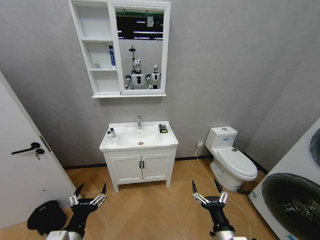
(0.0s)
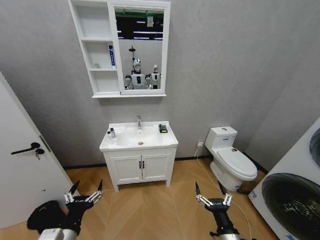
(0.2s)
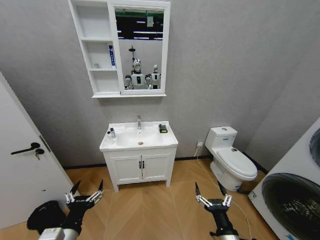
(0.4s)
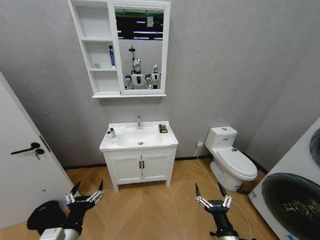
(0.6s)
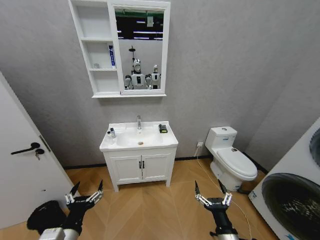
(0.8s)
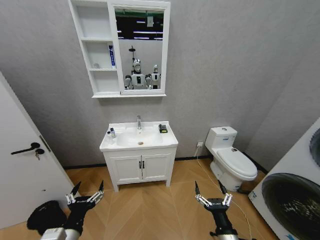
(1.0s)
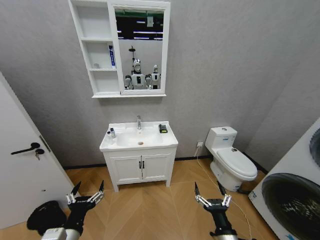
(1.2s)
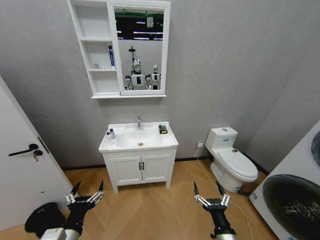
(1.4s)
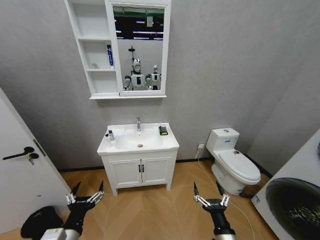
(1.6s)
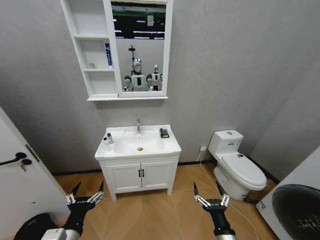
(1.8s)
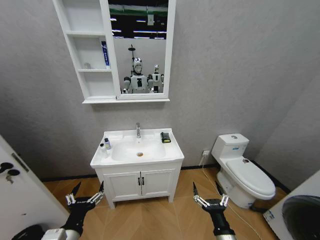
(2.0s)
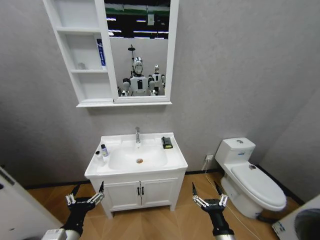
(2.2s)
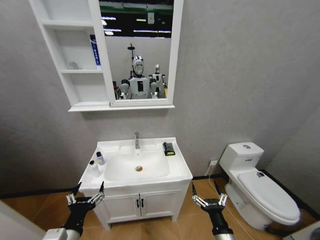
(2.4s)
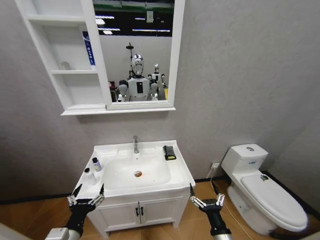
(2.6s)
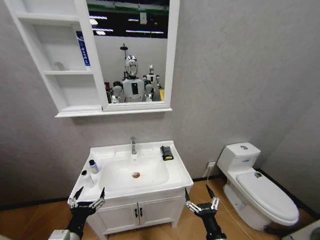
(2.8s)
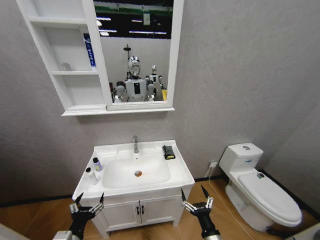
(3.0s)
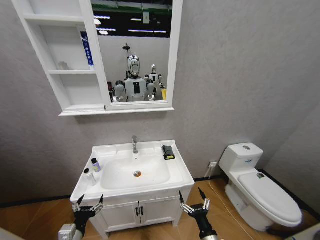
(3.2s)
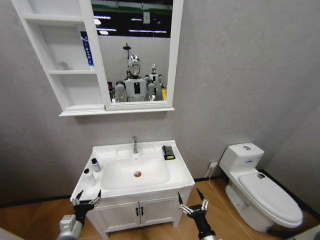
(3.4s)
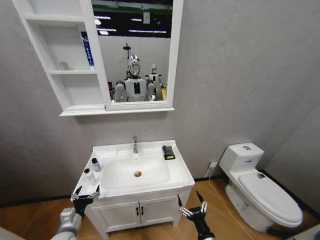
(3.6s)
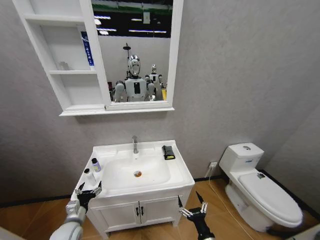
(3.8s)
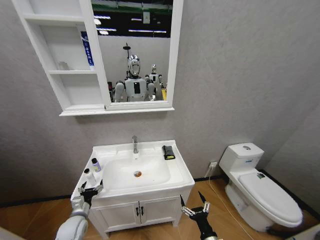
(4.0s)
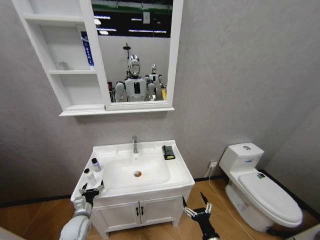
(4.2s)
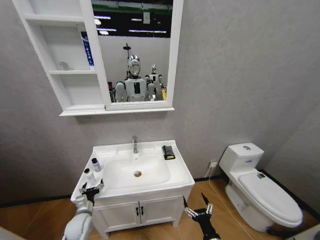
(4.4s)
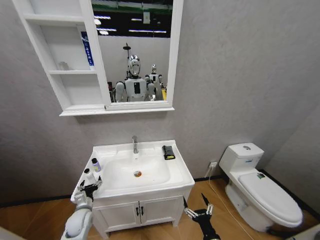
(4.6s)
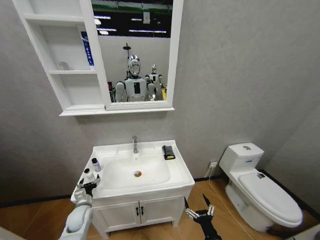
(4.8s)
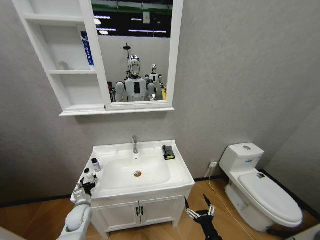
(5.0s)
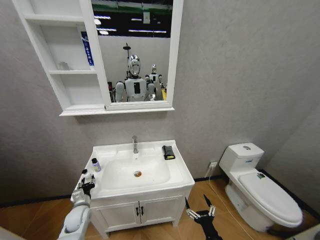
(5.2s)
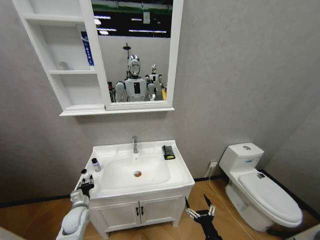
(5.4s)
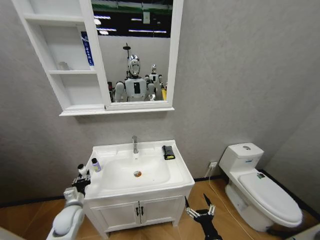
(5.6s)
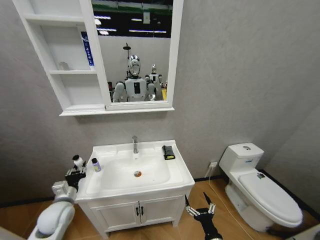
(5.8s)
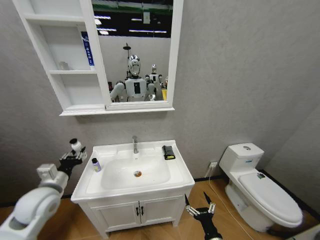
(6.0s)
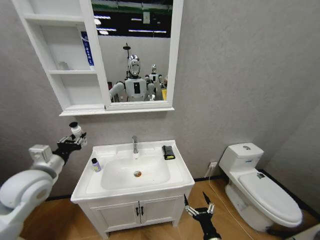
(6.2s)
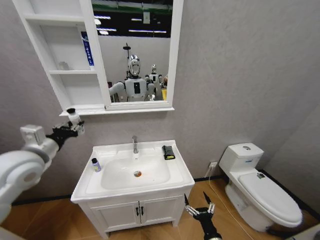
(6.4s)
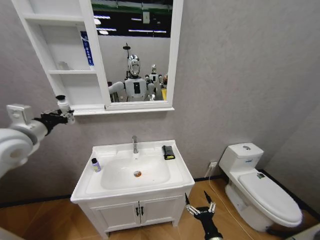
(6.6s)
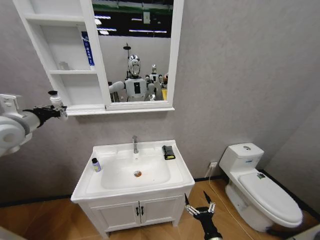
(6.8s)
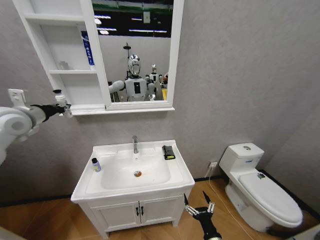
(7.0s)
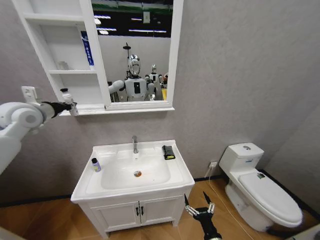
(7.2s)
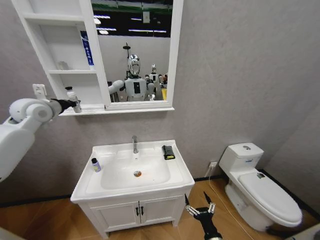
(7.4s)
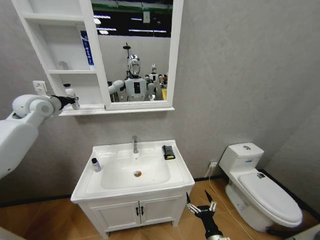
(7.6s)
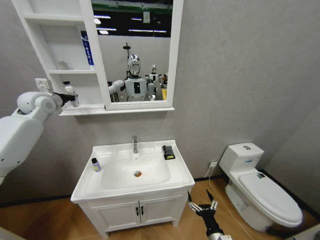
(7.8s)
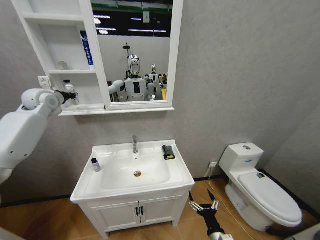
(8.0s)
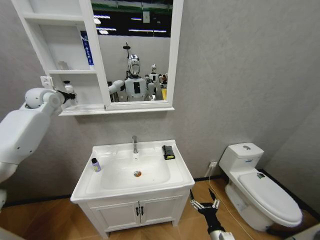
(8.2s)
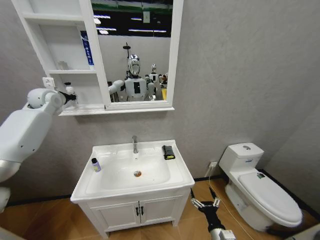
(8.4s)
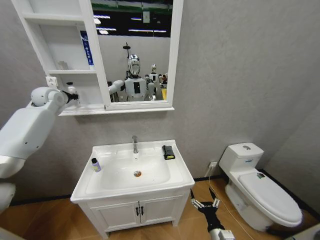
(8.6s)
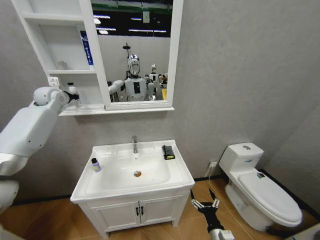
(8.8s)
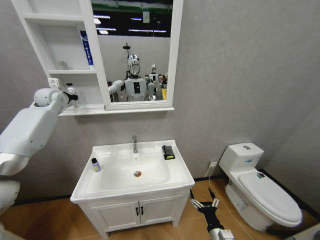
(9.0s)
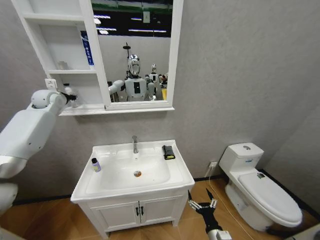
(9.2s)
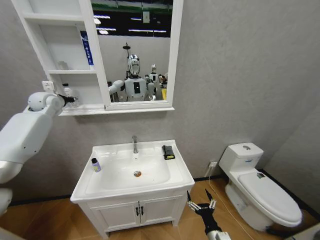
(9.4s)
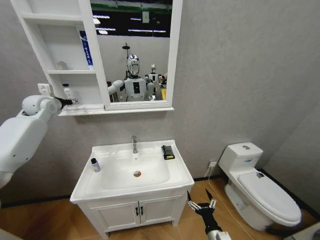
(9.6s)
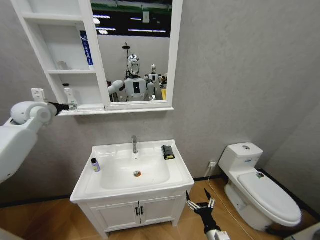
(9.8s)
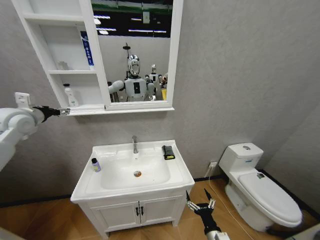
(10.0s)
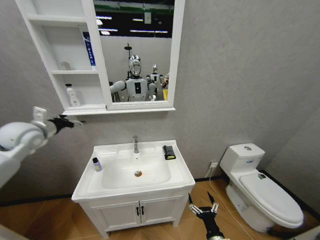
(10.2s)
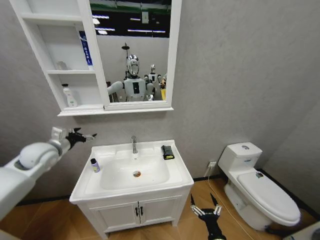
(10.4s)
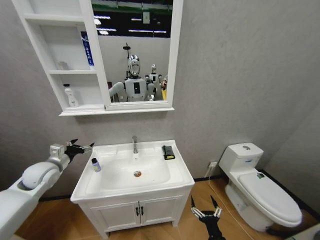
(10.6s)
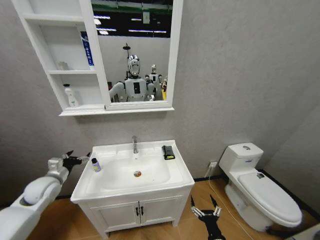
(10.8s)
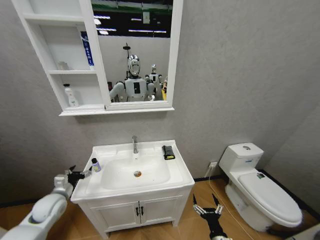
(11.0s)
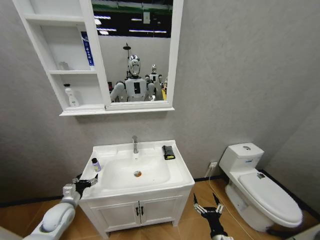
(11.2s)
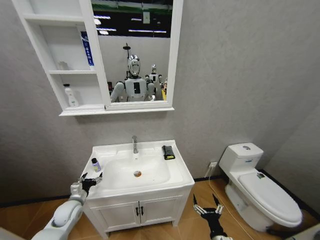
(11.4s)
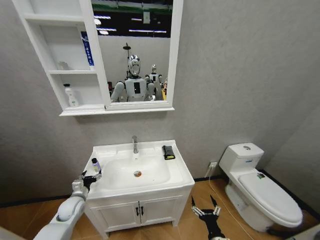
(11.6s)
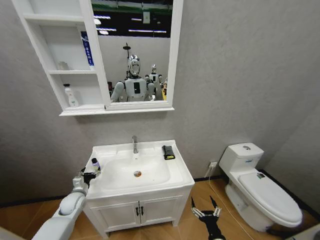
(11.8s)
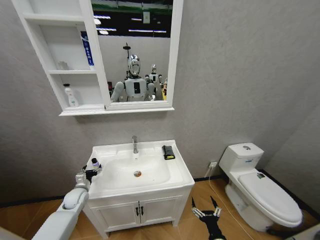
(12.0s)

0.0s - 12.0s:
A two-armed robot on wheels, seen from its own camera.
Task of the whole recording: Move facial cleanser and shampoo from washbasin to cabinet, then wipe washbasin with towel.
1.6s - 3.0s: The left gripper is displaced downward by roughly 5 cm.
3.0s - 4.4s: The left gripper moves forward and downward, roughly 20 cm.
4.4s - 6.0s: The left gripper travels upward by approximately 20 cm, and closes.
6.0s - 7.6s: The left gripper travels upward and forward by about 30 cm.
7.6s - 9.0s: The left gripper shifts approximately 10 cm forward.
9.0s - 10.4s: The left gripper moves backward and downward, roughly 25 cm, and opens.
10.4s - 12.0s: The left gripper travels downward by some 25 cm.

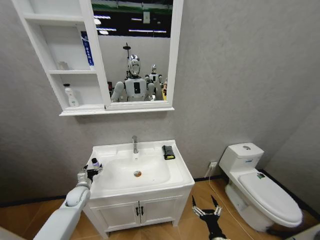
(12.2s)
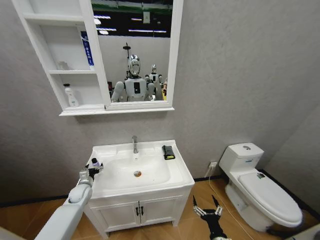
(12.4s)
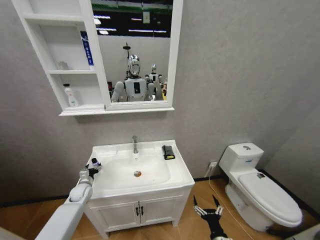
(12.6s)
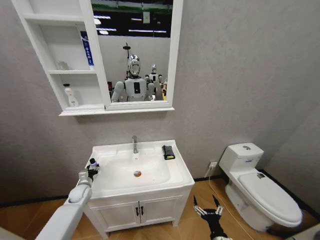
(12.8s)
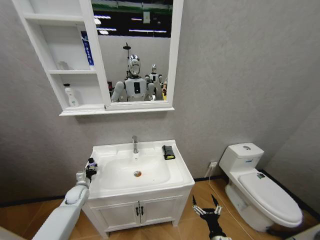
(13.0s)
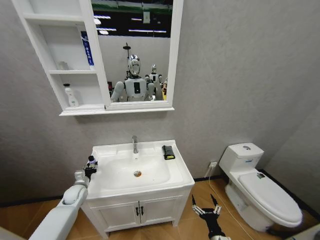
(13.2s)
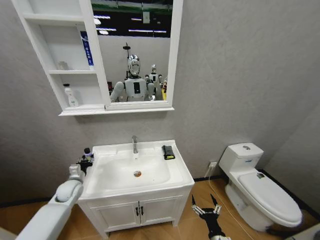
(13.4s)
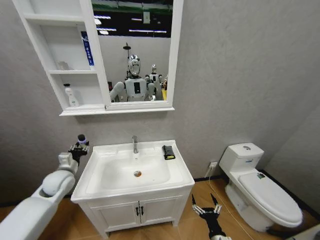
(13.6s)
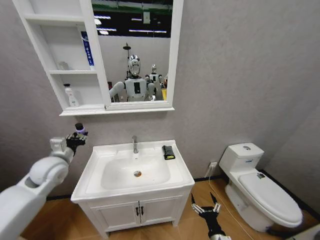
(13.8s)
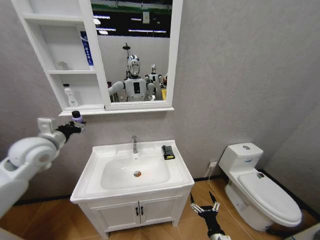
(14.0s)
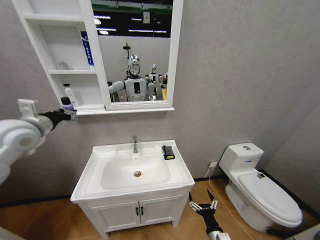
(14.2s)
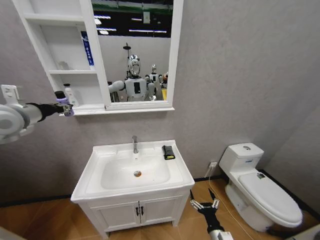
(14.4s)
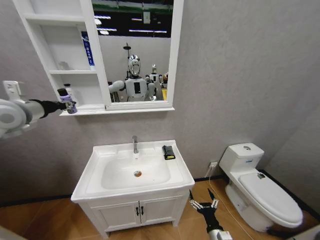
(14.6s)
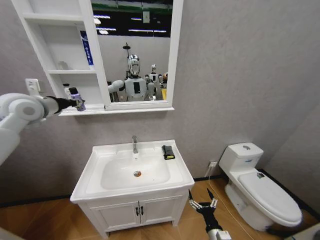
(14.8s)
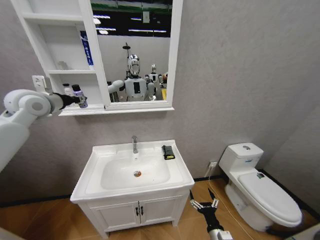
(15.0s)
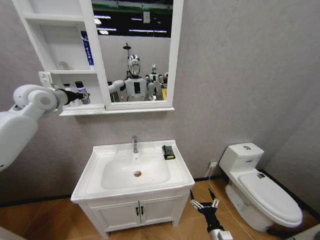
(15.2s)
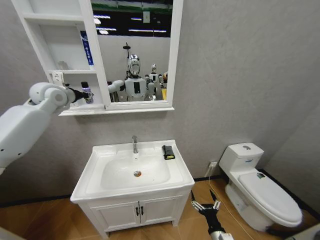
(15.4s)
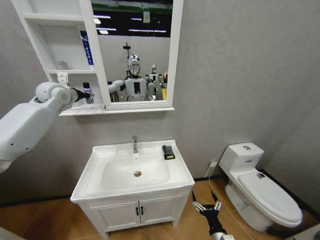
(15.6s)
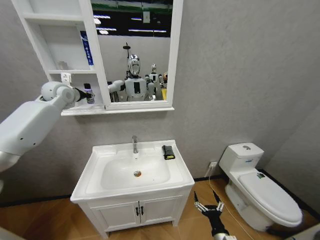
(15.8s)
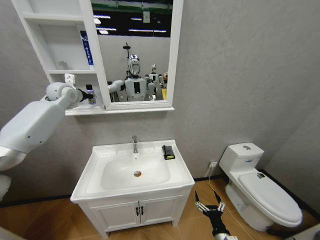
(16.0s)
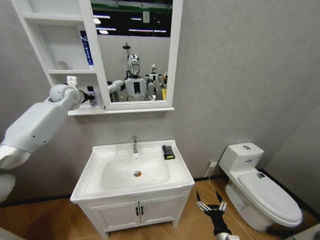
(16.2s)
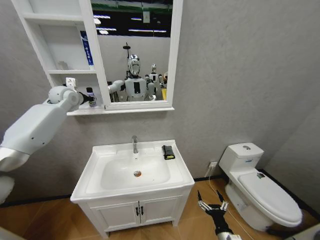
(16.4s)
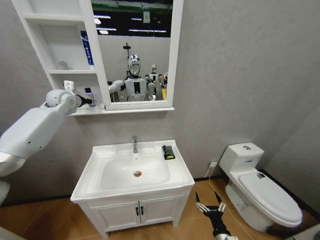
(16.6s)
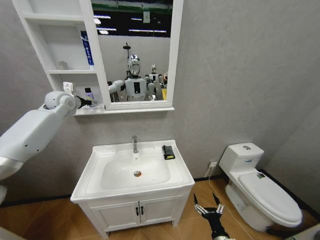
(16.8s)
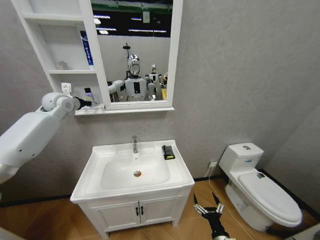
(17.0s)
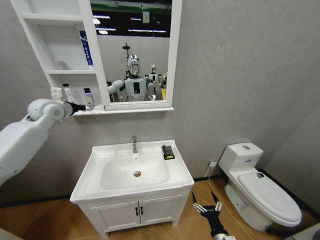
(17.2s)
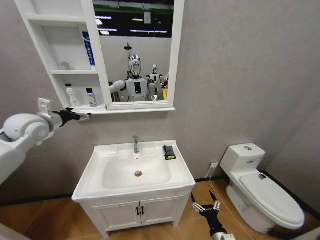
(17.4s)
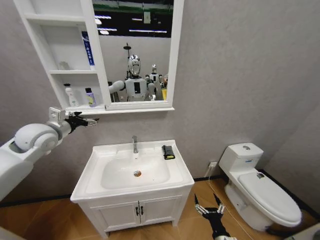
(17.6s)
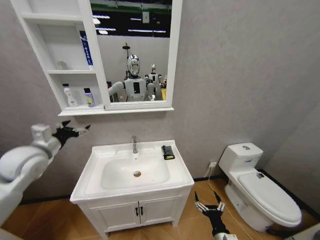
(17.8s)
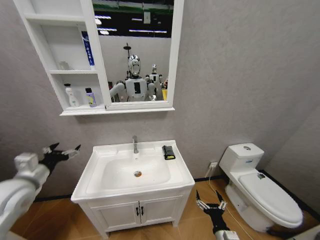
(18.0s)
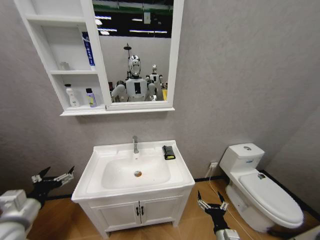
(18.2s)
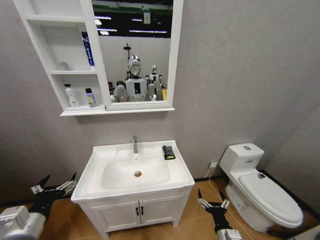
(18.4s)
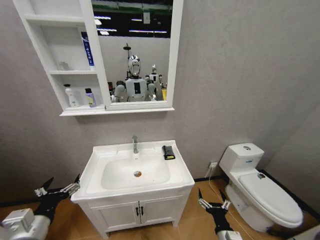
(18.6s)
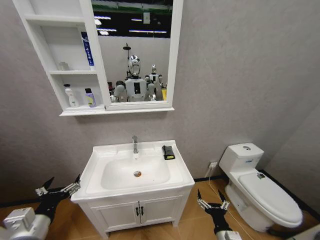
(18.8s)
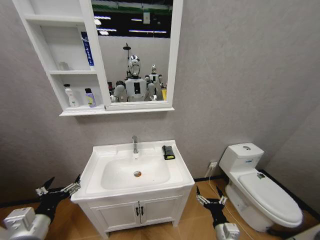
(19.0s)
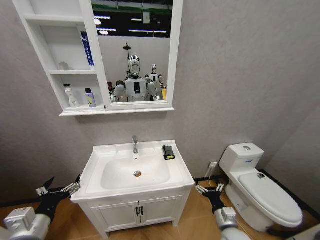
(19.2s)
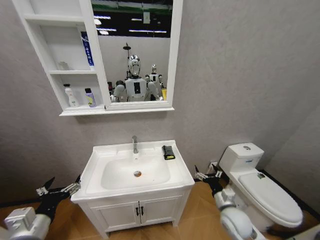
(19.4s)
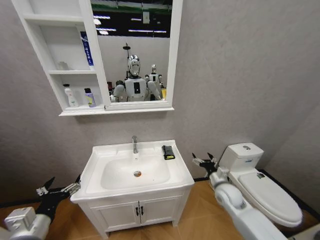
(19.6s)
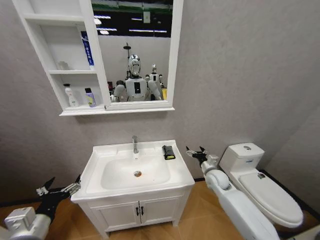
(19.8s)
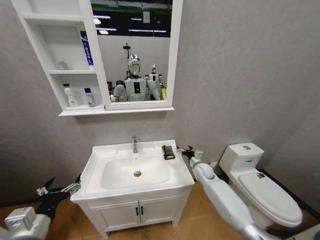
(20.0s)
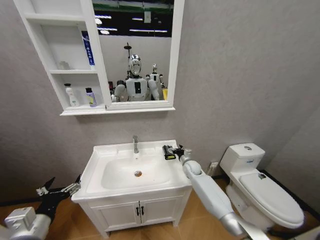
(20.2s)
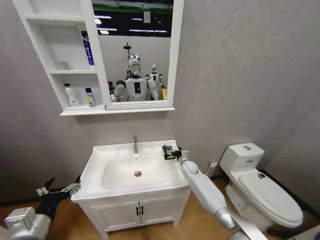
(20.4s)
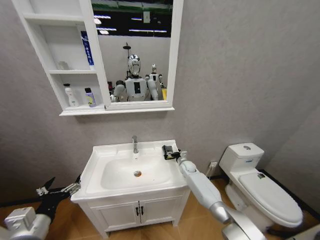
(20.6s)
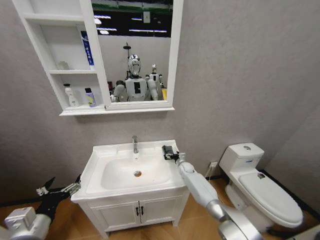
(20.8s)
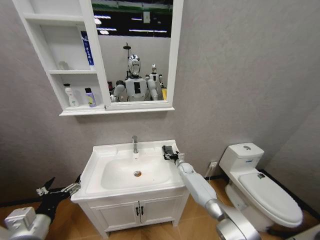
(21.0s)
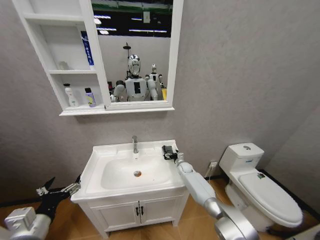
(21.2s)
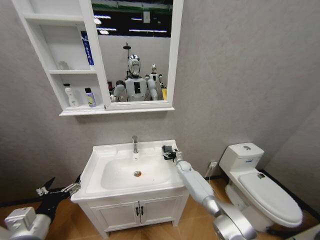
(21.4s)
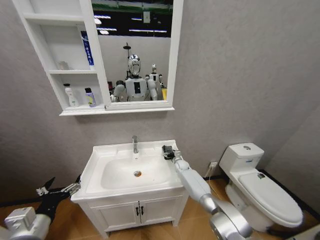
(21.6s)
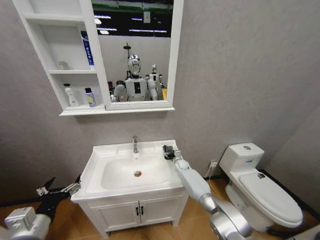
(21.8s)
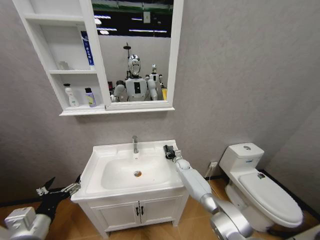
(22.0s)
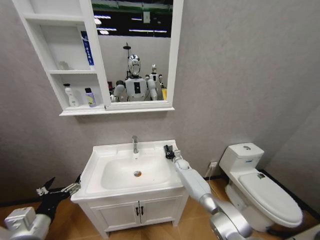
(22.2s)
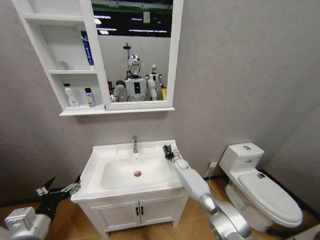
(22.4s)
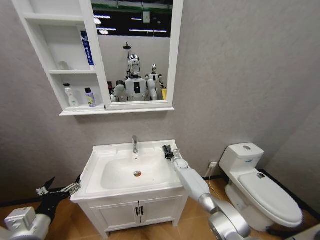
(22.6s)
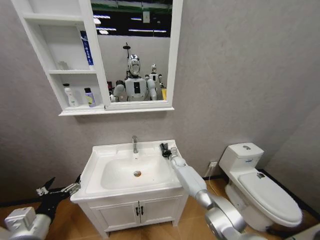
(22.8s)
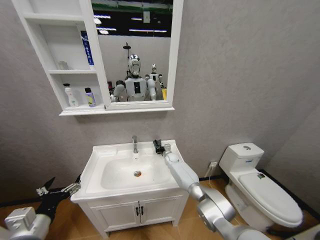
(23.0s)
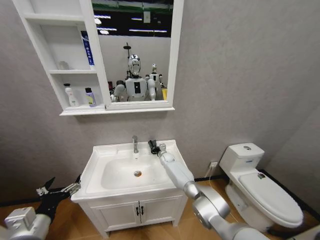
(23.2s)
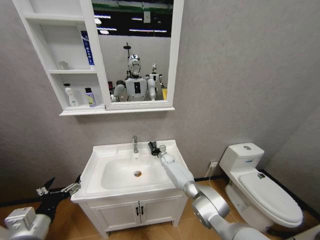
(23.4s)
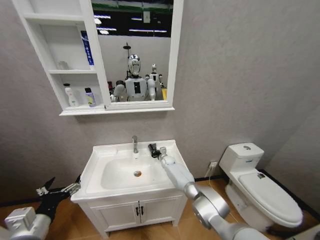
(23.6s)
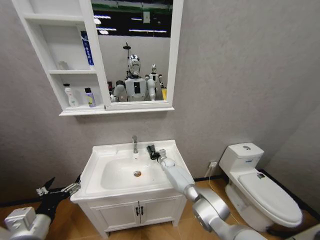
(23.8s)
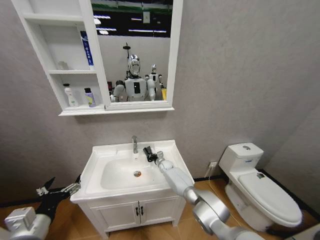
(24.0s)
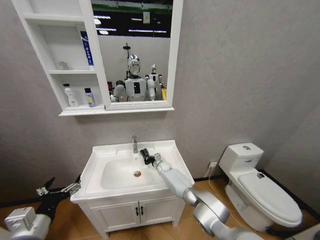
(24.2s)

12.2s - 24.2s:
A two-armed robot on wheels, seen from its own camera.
Task of the whole recording: Move facial cleanser and shampoo from washbasin to cabinet, then wipe washbasin with towel.
12.2s - 13.8s: The left gripper is displaced upward by approximately 25 cm, and closes.
13.8s - 15.2s: The left gripper travels upward and forward by roughly 25 cm.
15.2s - 16.6s: The left gripper moves forward, about 10 cm.
16.6s - 18.2s: The left gripper travels backward and downward by approximately 50 cm, and opens its fingers.
18.2s - 19.8s: The left gripper travels to the right by about 5 cm, while the right gripper goes about 30 cm forward.
19.8s - 21.2s: The right gripper goes approximately 20 cm forward, downward and to the left.
21.2s - 22.6s: The right gripper closes its fingers.
22.6s - 24.2s: The right gripper goes some 10 cm to the left.
